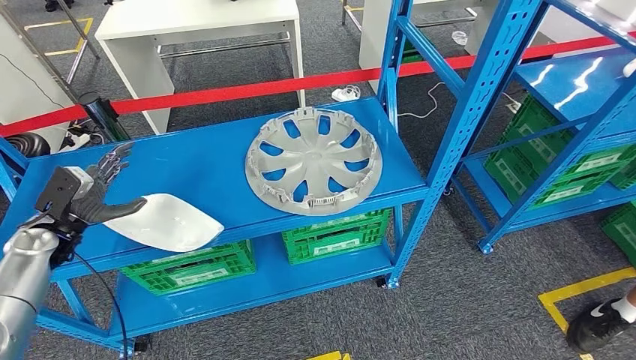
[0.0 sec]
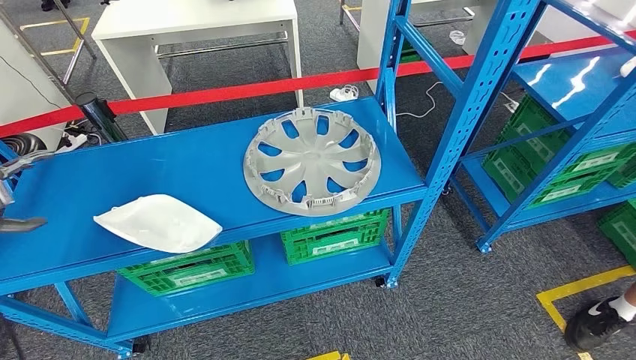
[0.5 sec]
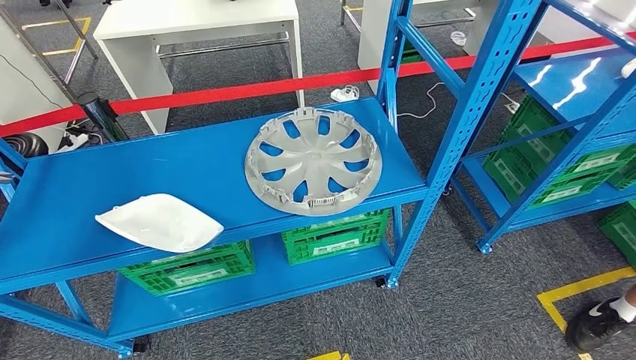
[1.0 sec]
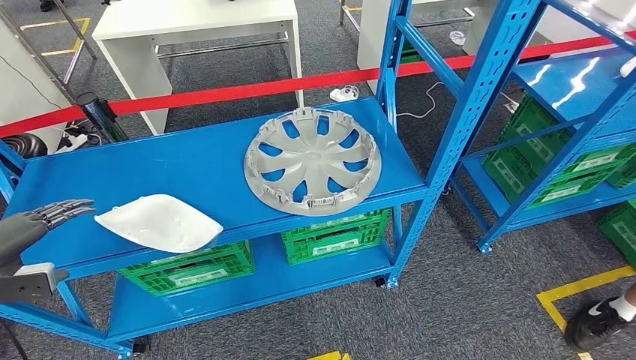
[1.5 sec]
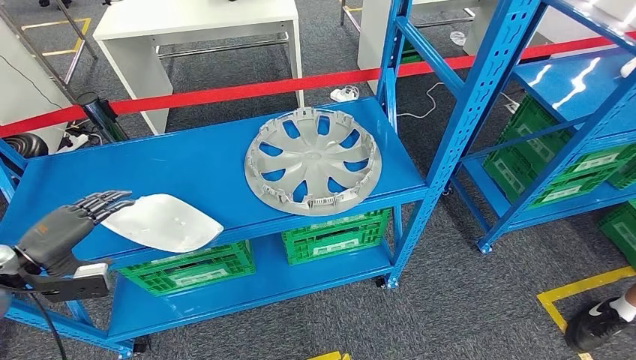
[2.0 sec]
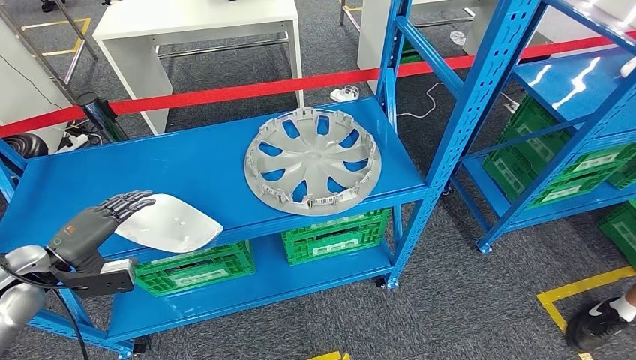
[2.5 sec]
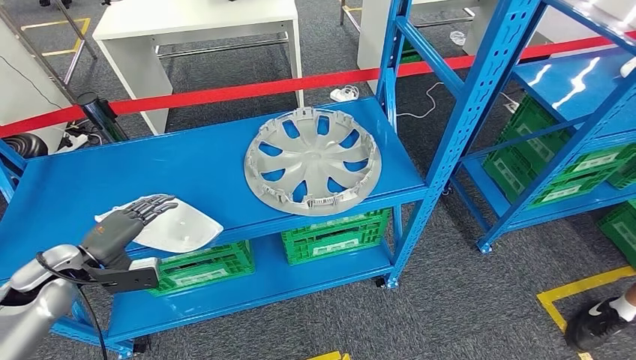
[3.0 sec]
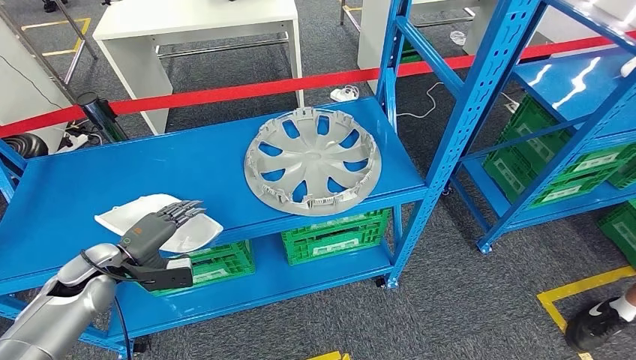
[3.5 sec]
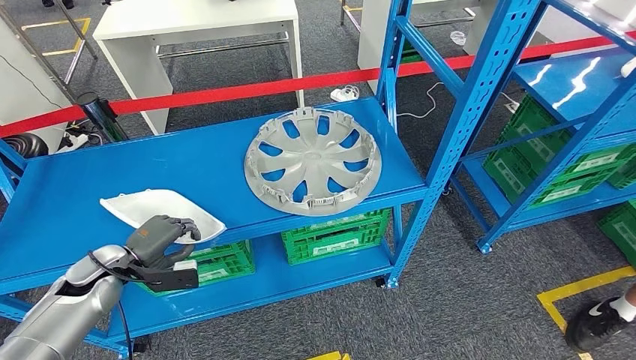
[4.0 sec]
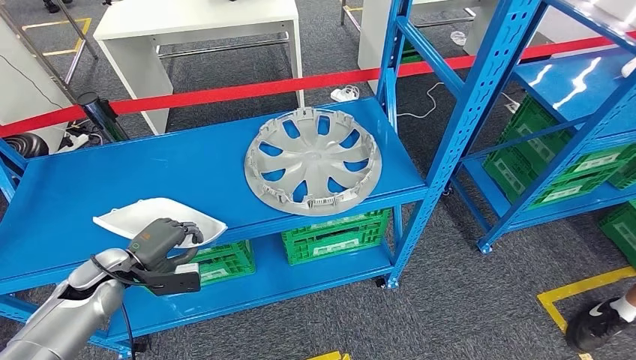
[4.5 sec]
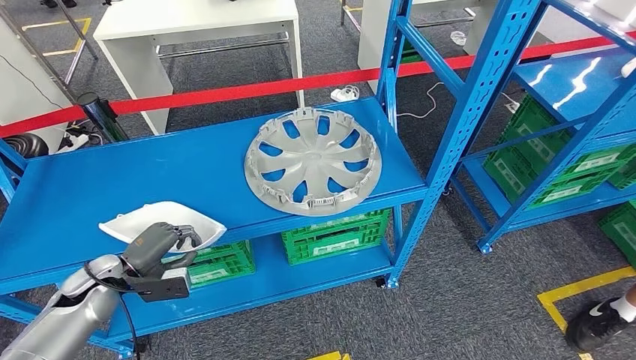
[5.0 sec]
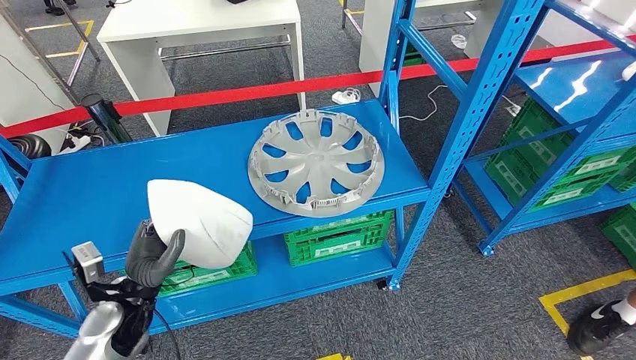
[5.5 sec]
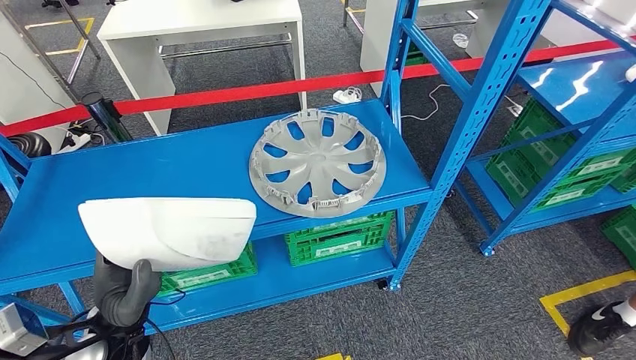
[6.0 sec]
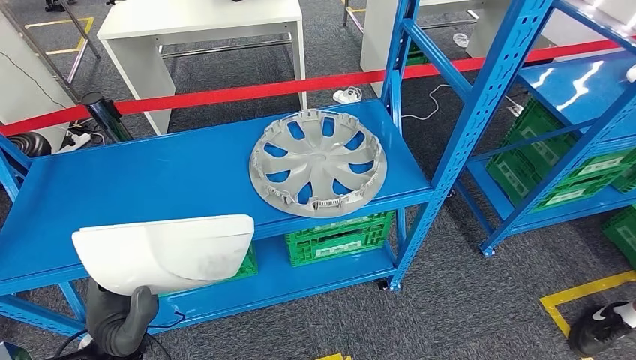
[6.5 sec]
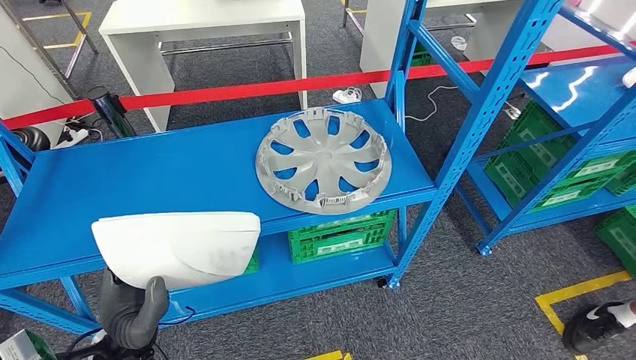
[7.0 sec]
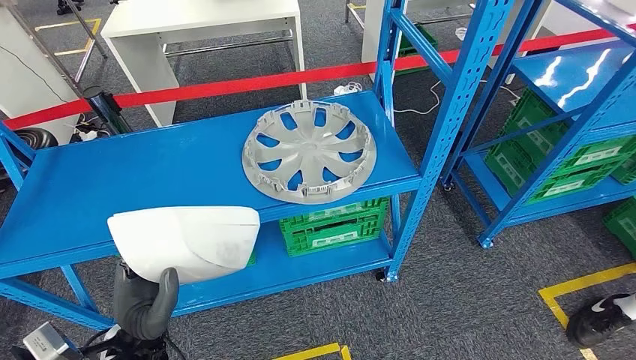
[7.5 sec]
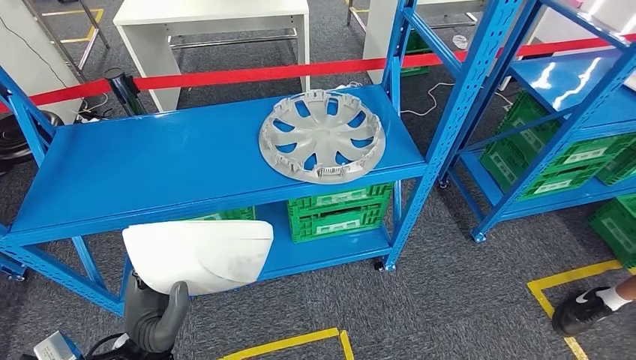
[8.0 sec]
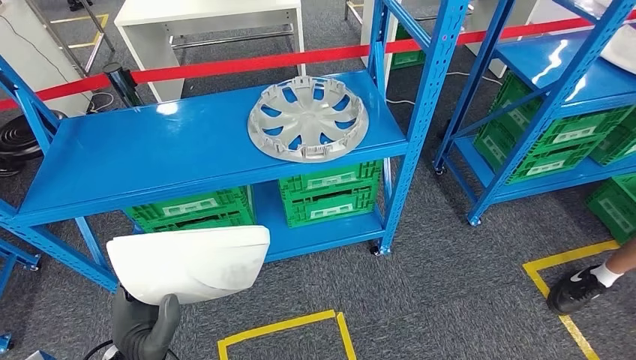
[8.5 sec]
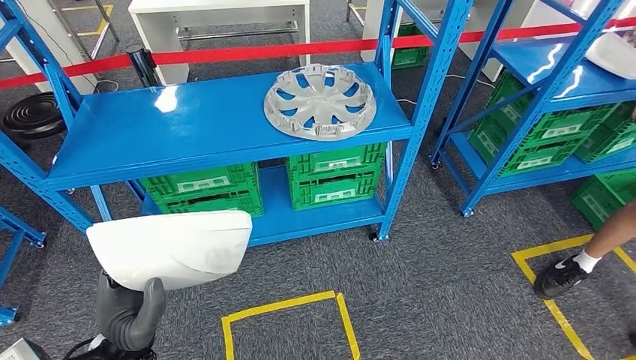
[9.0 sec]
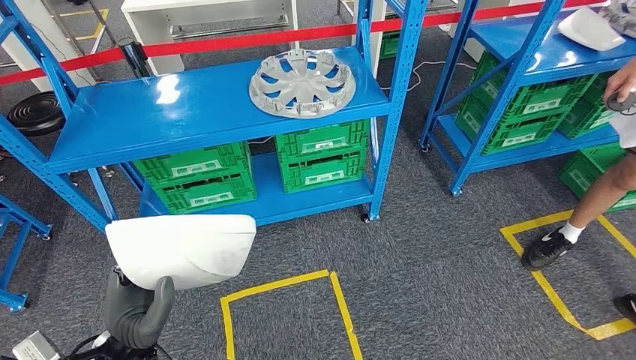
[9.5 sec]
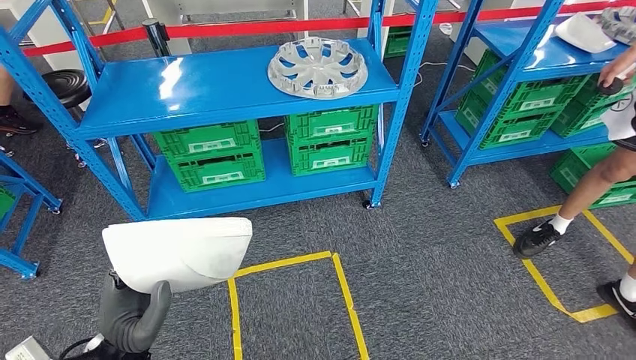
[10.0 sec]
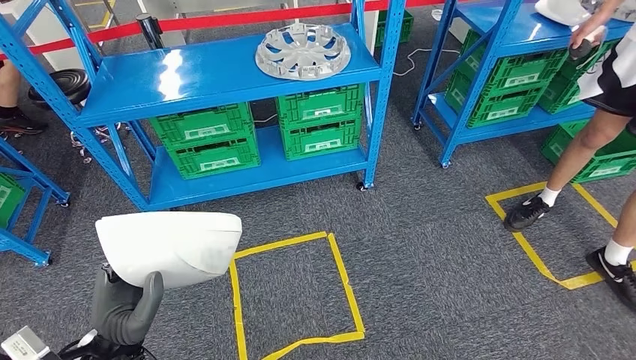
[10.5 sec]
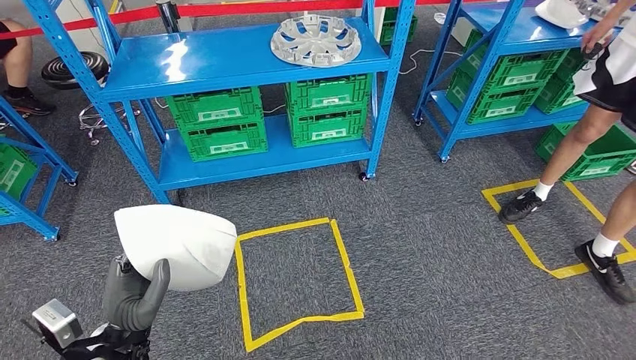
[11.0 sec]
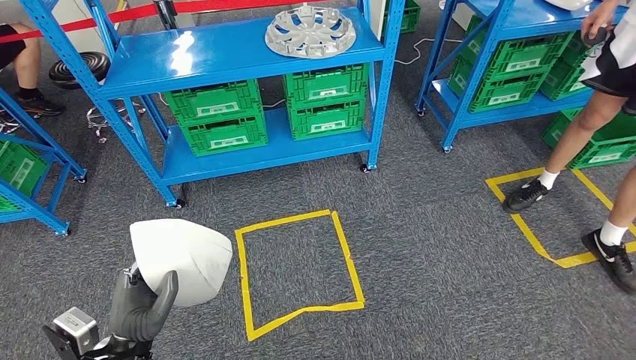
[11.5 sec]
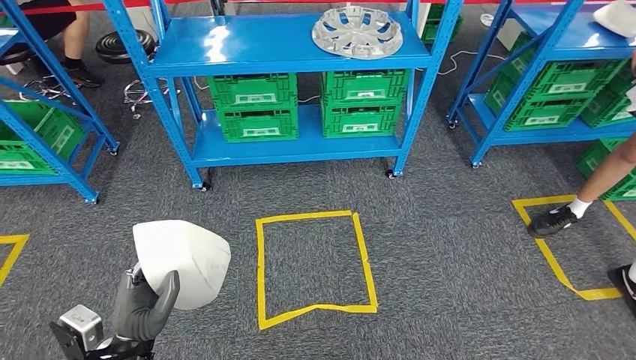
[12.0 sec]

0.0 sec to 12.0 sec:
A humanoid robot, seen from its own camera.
Step, 0.0 sec to 5.5 sec: Take small components from the rack.
0.0 sec to 2.0 sec: The left hand moves backward, approximately 10 cm, and goes to the left and returns, roughly 20 cm each way.
2.0 sec to 4.0 sec: The left hand shifts approximately 15 cm to the right and downward.

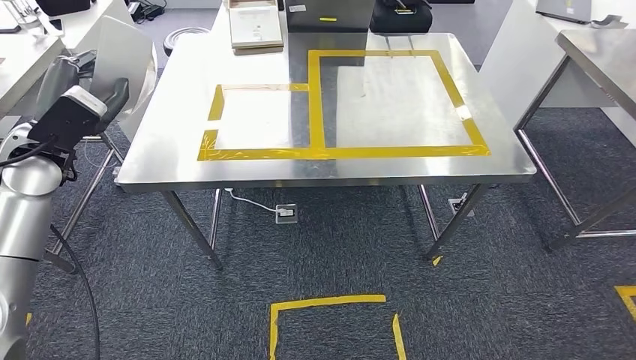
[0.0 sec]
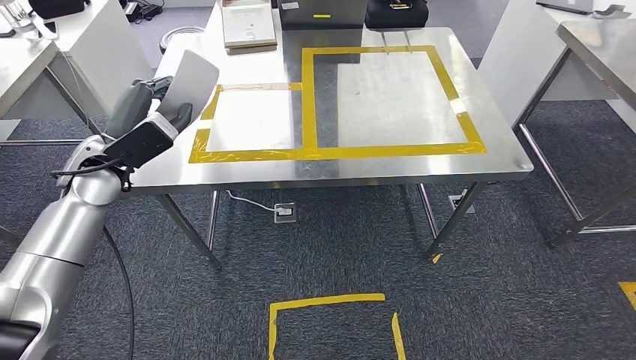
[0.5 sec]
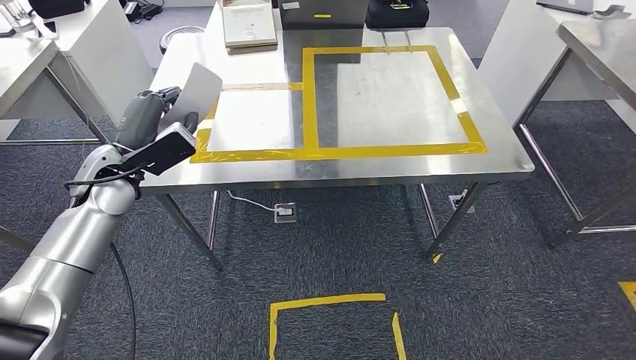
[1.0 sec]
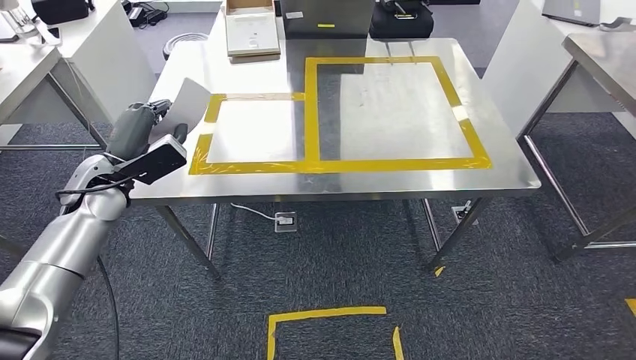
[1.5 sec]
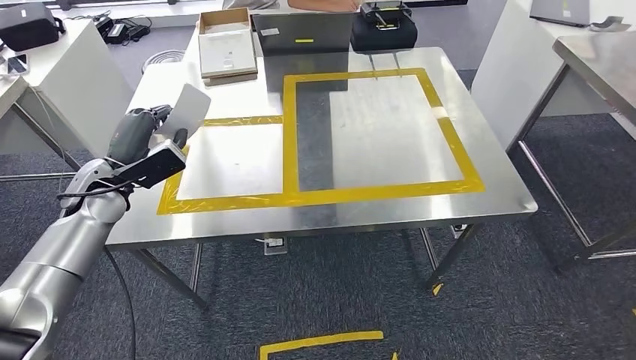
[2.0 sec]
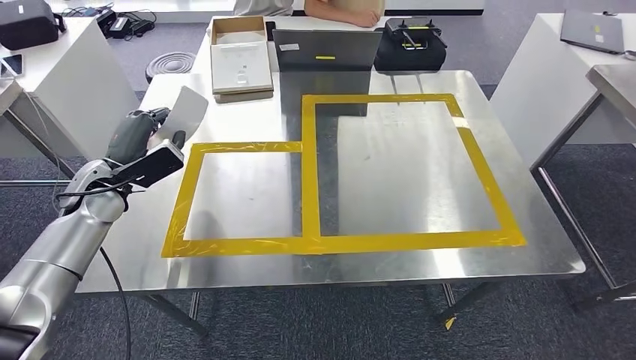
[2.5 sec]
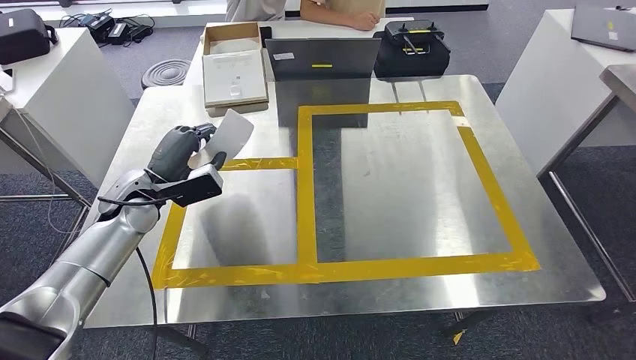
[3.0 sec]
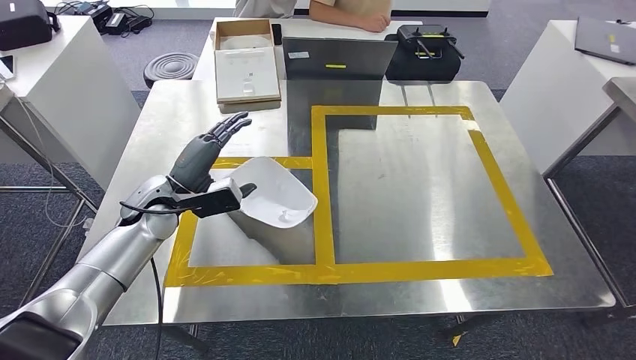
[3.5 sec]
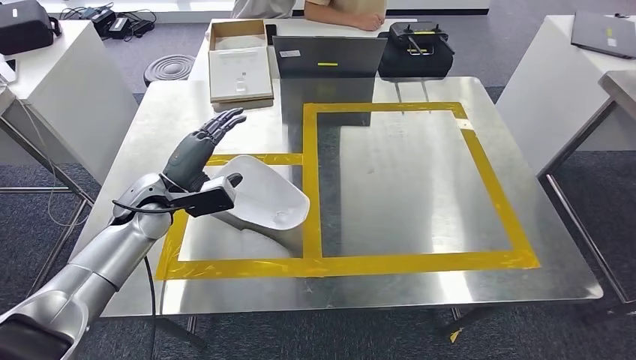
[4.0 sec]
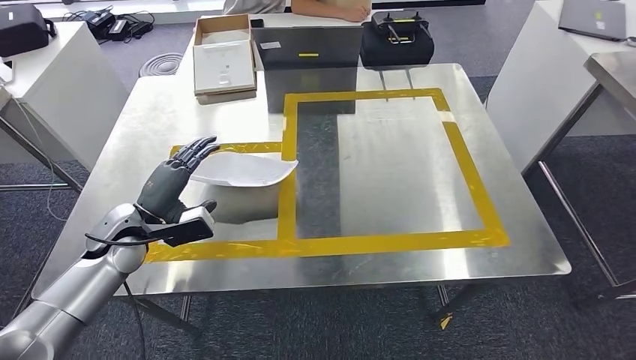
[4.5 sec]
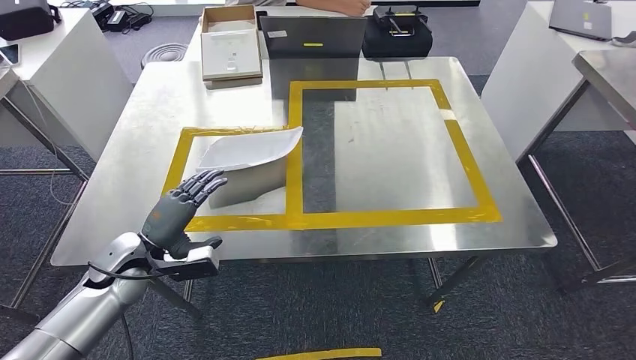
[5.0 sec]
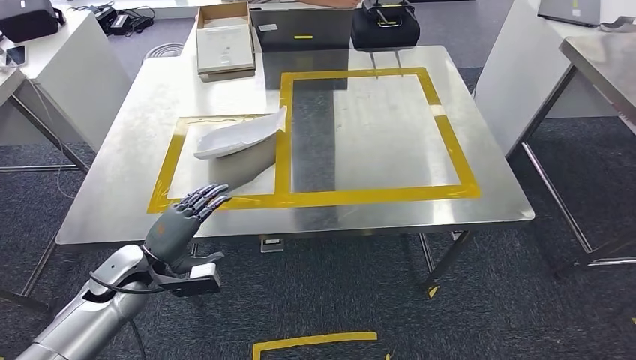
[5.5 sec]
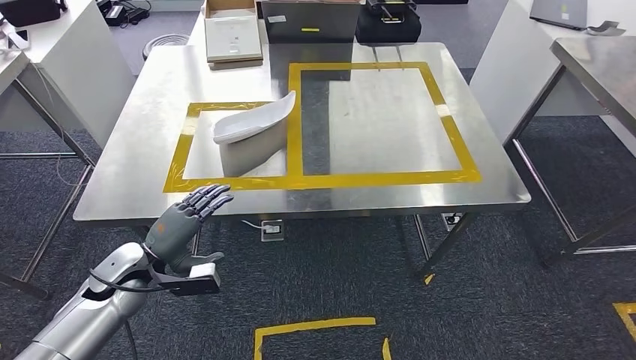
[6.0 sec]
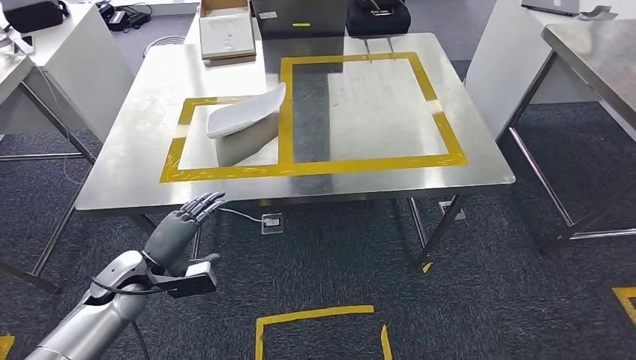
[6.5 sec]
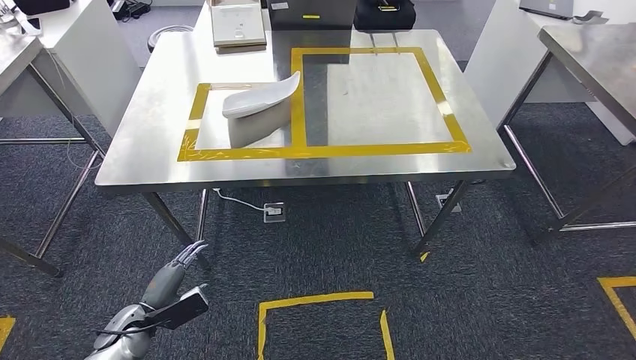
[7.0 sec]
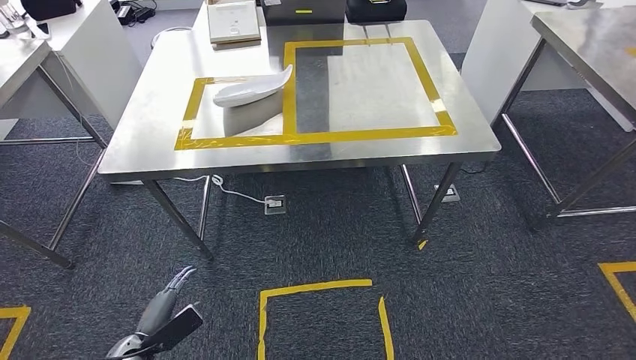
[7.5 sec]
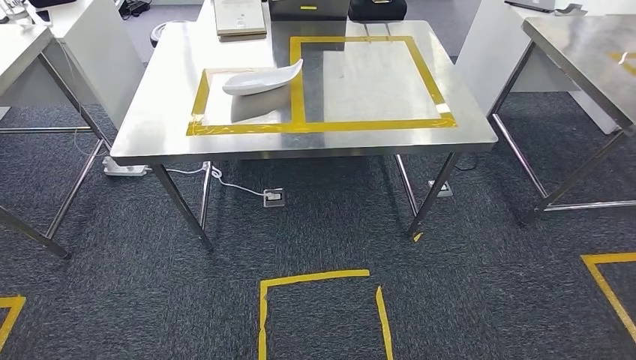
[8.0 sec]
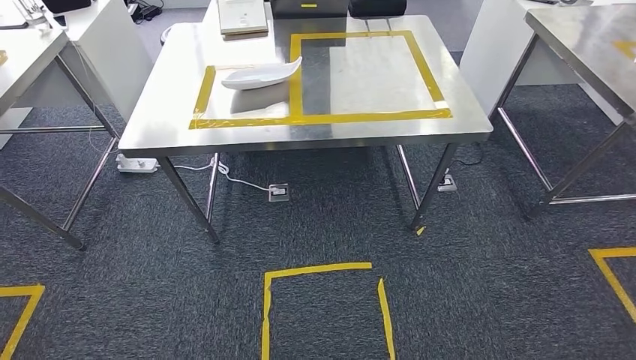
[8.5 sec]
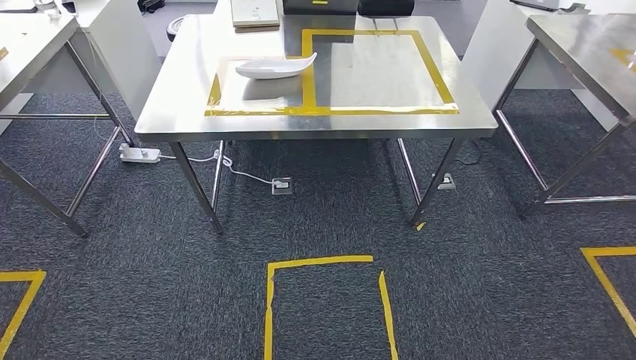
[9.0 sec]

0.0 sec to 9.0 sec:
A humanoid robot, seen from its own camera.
Step, 1.5 sec to 4.0 sec: Insert the small parts into the corresponding holes on the workbench.
Step, 4.5 sec to 9.0 sec: Move to the initial position of the workbench.
